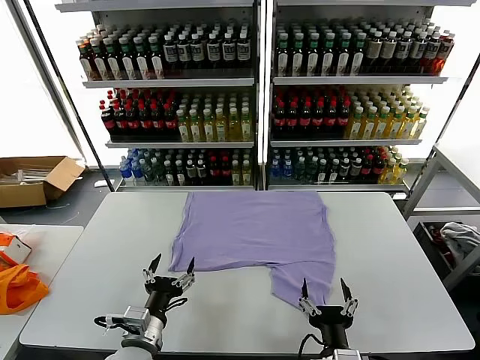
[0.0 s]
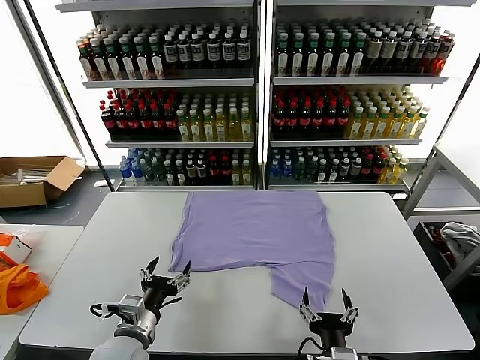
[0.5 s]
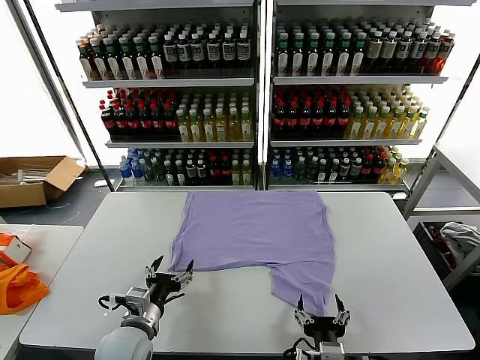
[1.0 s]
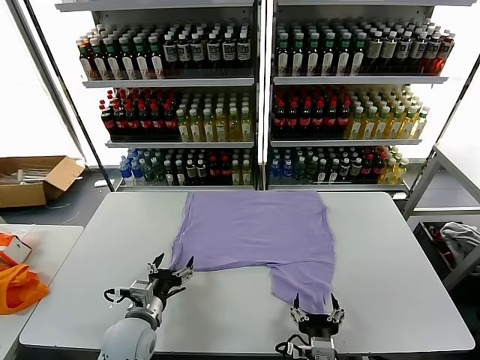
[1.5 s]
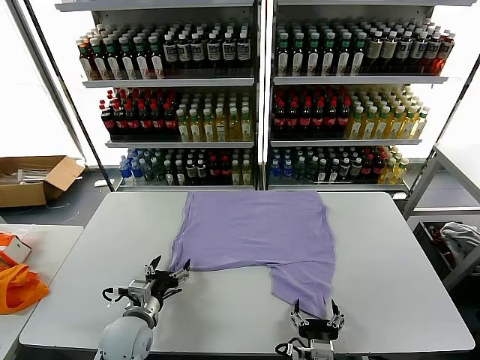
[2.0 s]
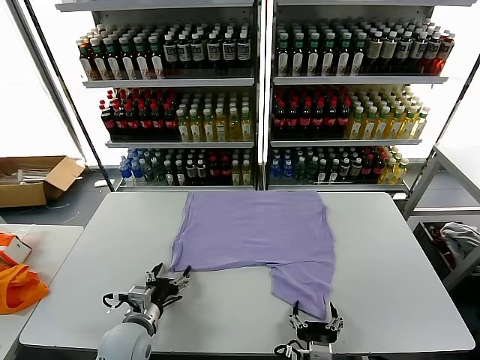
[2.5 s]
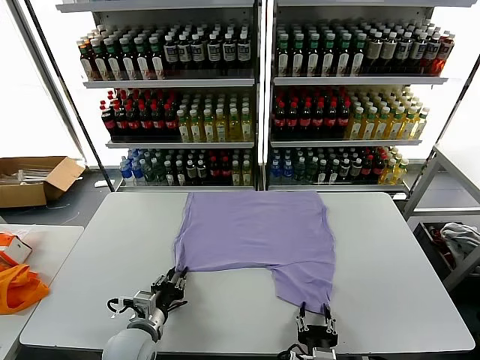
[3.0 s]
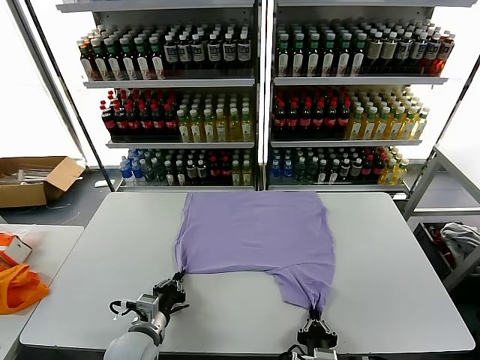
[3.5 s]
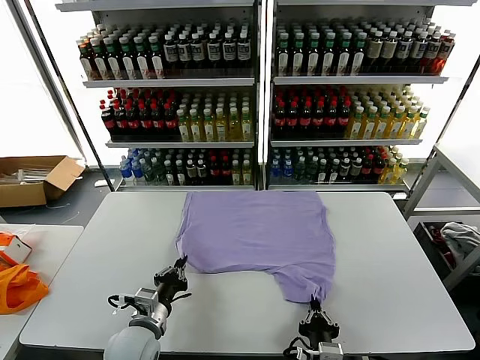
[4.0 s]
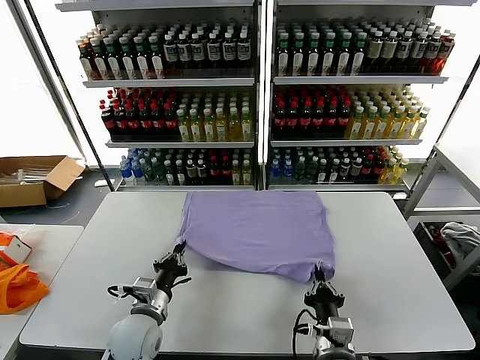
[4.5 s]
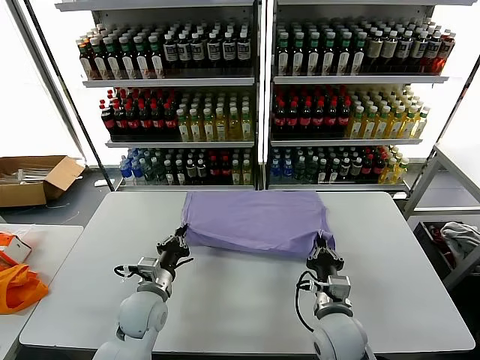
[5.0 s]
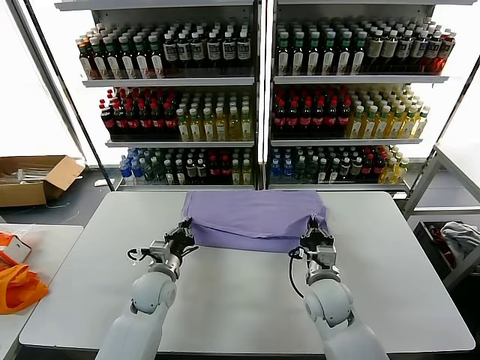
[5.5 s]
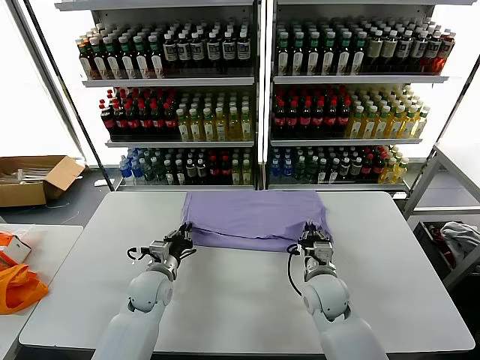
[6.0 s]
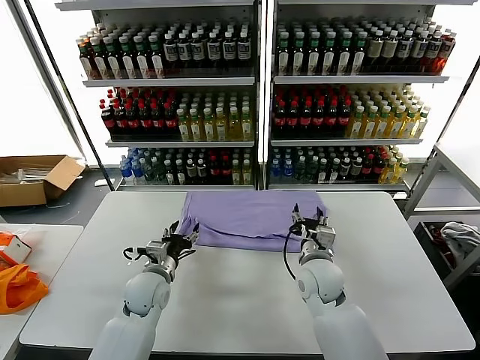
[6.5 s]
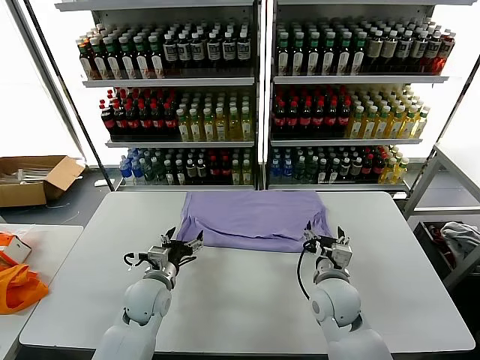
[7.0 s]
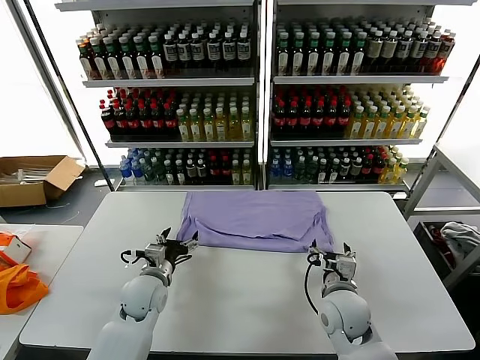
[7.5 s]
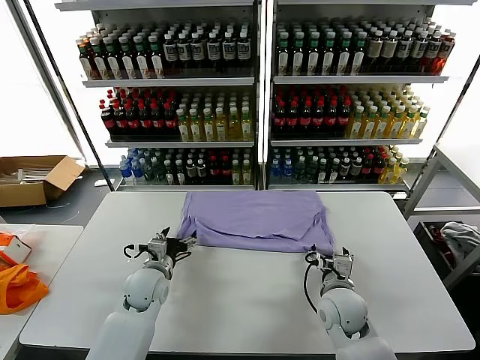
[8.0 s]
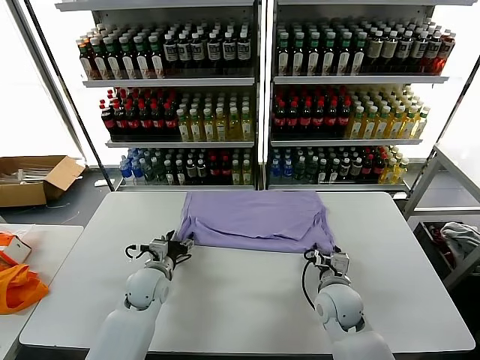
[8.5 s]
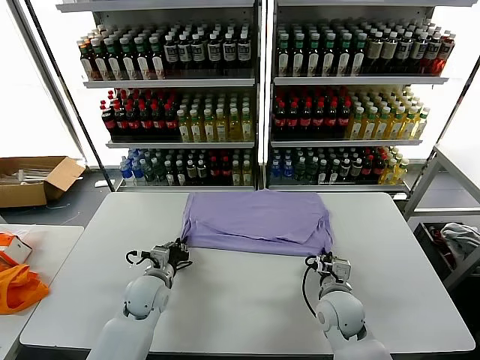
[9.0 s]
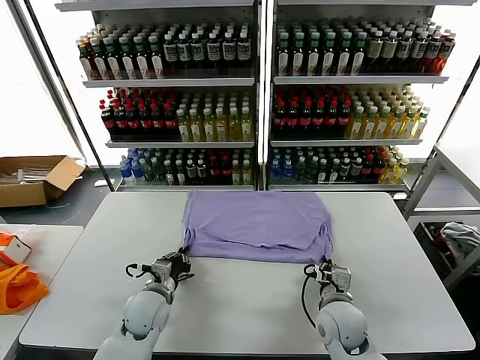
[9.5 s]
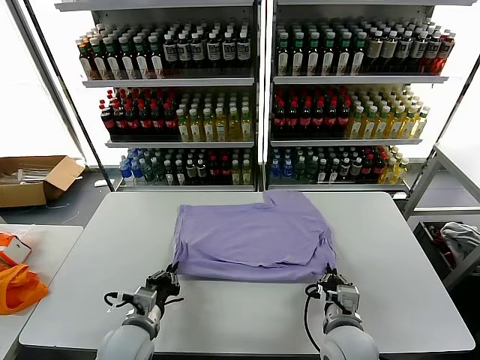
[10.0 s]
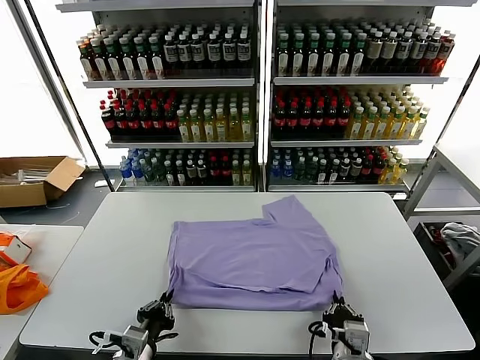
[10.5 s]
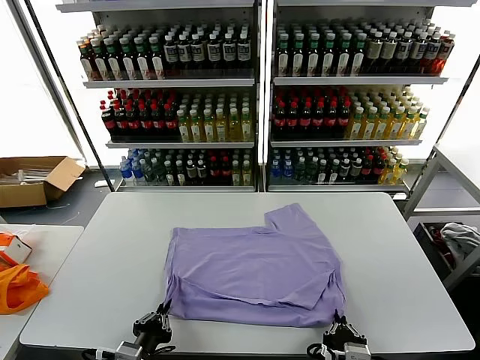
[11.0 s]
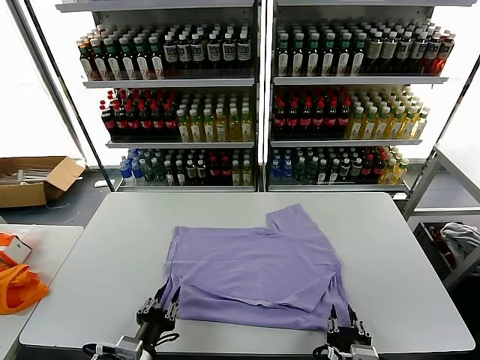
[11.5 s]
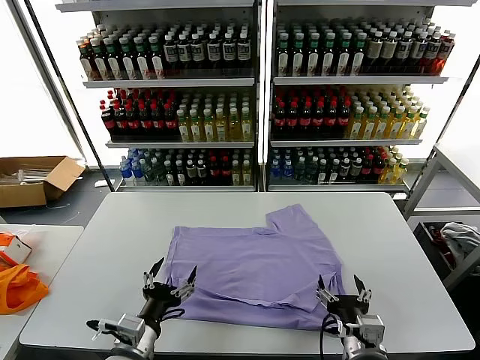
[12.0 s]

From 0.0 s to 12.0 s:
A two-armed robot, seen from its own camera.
Task of the whole recording: fold and organize the clothes.
Step, from 0.0 s to 3.5 s: use both grippers simultaneously to clamp the lower edge of the clothing fabric.
Step, from 4.0 s to 6.0 s: use both grippers to drag the lower edge of the fabric forward and fold it over the upper edge.
Step, from 6.5 s to 11.5 s: Drag the clothes downward with both gripper.
From 2.0 s to 4.0 s: The left gripper closes its fingers; the right gripper closes its fingers.
From 4.0 s to 6.0 s: The right gripper shifts roughly 20 cm forward, and opens. The left gripper shifts roughly 15 cm forward.
From 6.0 s to 8.0 s: The right gripper ends up some 5 cm from where it was, and opens. Meanwhile the left gripper opens up.
From 8.0 s to 10.0 s: Both grippers travel together backward, roughly 15 cm. The left gripper closes up; the right gripper closes up.
From 10.0 s to 12.0 s: The left gripper travels backward by roughly 5 cm, and opens up. Meanwhile the right gripper moves approximately 10 cm backward and comes back, and opens.

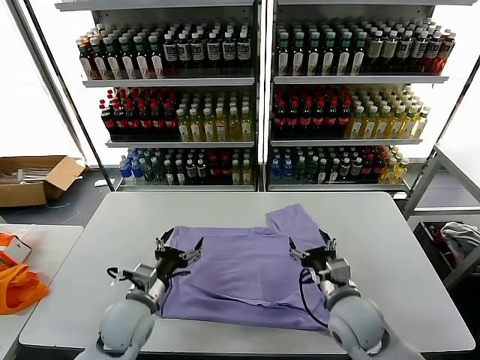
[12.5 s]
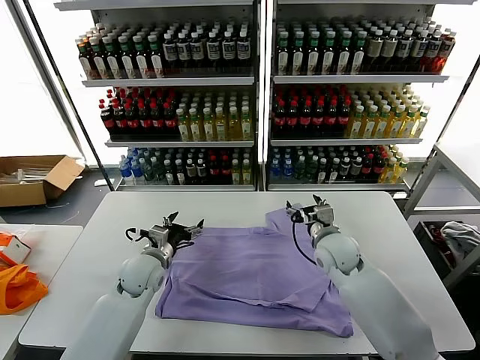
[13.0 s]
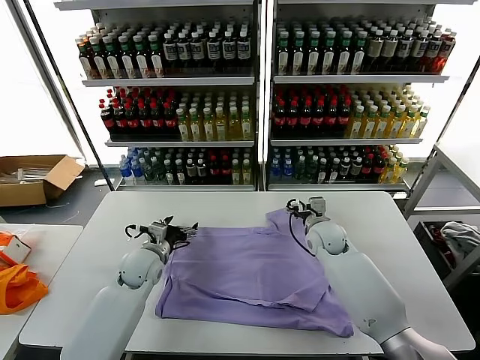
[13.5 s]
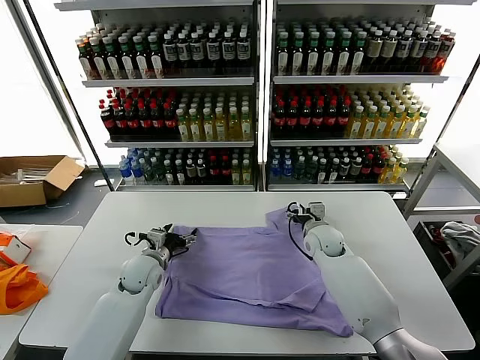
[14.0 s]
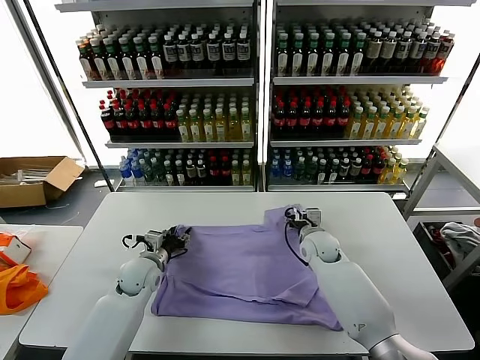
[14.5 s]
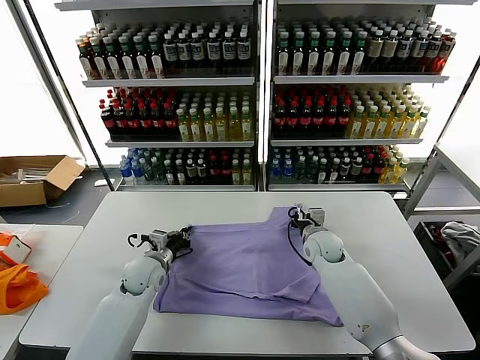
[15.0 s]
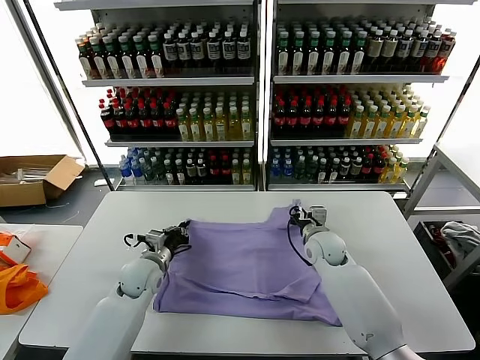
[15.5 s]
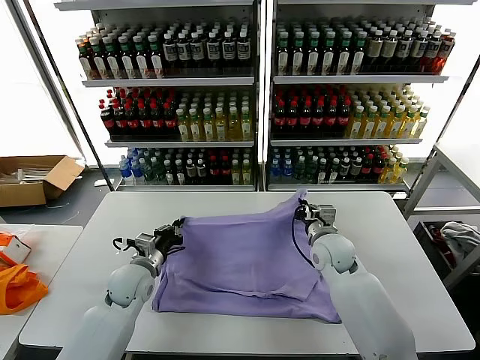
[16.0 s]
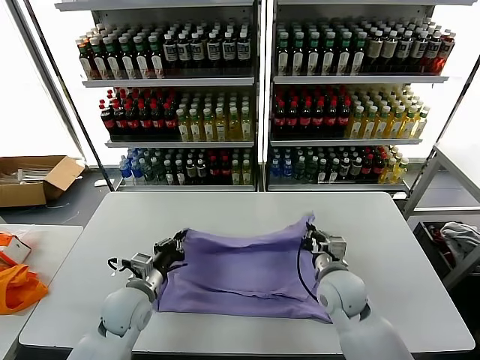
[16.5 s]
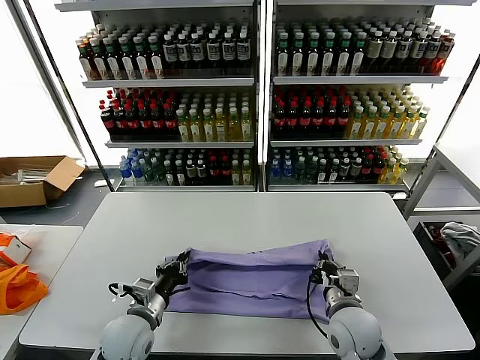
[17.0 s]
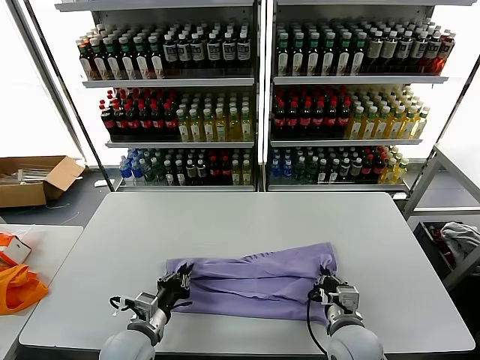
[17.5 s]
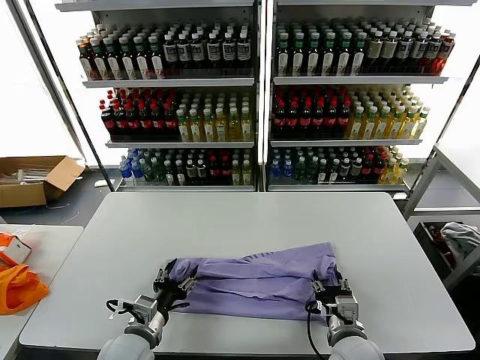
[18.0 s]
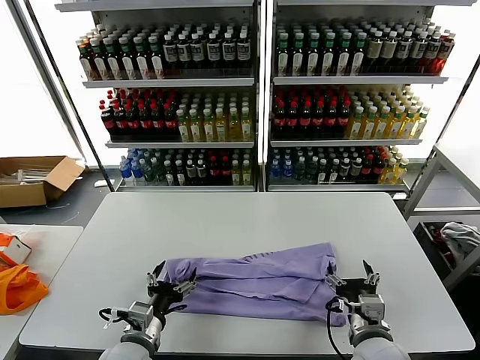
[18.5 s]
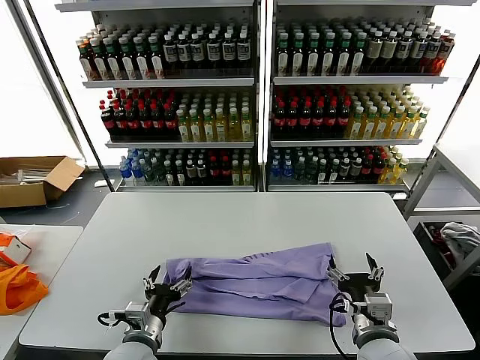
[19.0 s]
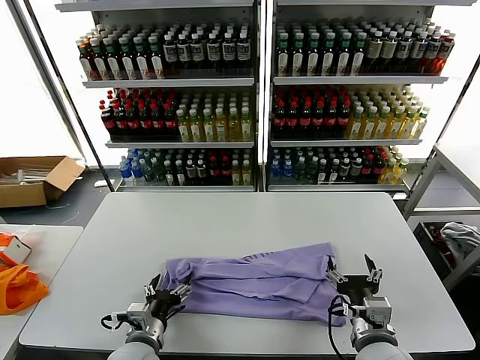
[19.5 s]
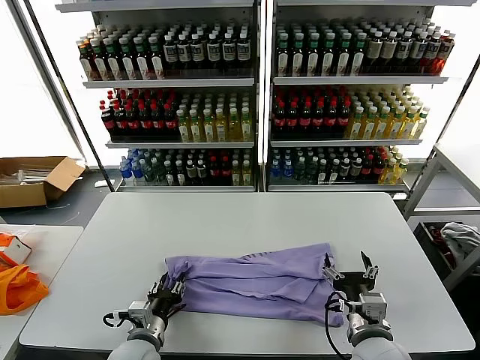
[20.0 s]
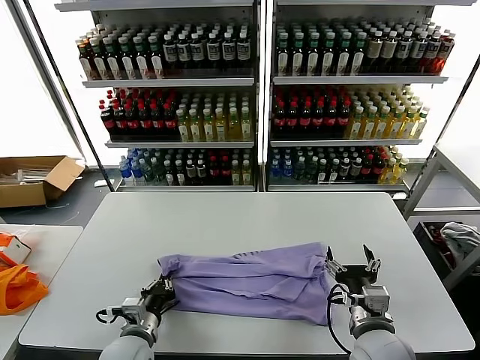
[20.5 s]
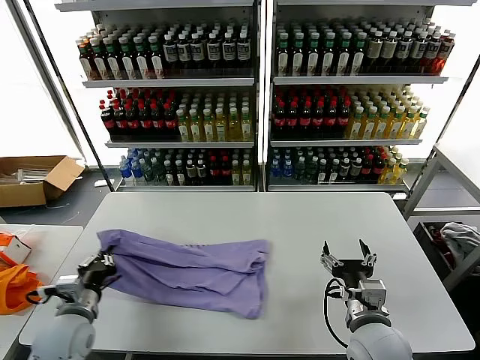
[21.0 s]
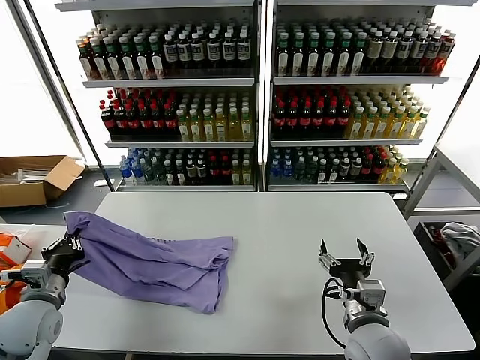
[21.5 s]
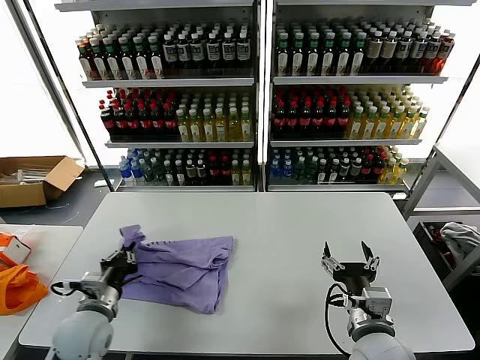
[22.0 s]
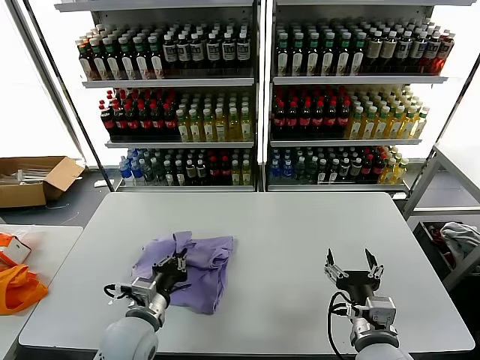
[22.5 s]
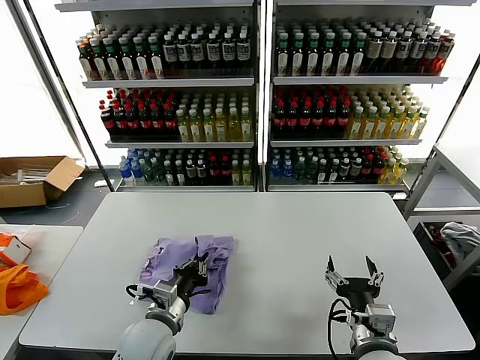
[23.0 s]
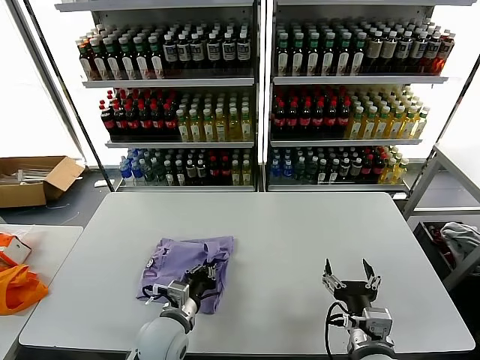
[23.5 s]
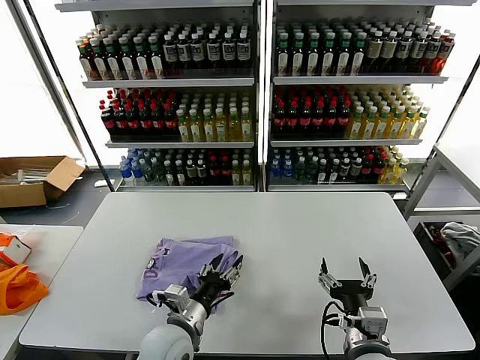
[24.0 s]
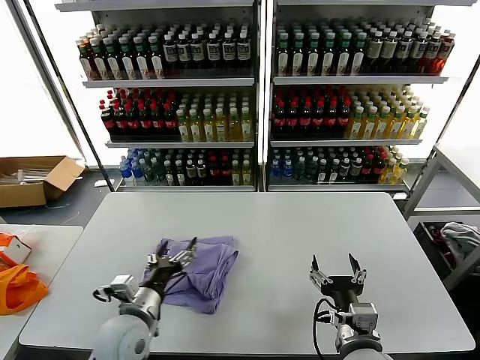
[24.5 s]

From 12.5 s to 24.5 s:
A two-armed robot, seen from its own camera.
Task of the whole recording: fold and organize the clothes.
Step, from 12.5 s to 15.5 s: use both grippers simultaneously to clamp the upper edge of the clothing fabric.
Step, from 16.0 s to 18.0 s: use both grippers to drag the upper edge of the fabric backward and fold it over the lower edge.
Step, from 18.5 s to 20.0 s: use the left gripper to clamp the left edge of the fabric.
Step, from 21.0 s to 24.0 s: use the left gripper to drag the left edge of the fabric to the left and folds it over the right edge.
From 12.5 s to 14.5 s: The grippers both shift forward by roughly 15 cm. The left gripper closes. Meanwhile the right gripper closes.
From 14.5 s to 16.5 s: The right gripper shifts roughly 15 cm backward, and closes its fingers. Meanwhile the left gripper shifts some 10 cm backward, and closes up.
From 16.5 s to 18.5 s: The grippers both shift backward by some 10 cm. The left gripper opens up, while the right gripper opens its fingers.
From 18.5 s to 20.5 s: The left gripper closes.
From 20.5 s to 22.5 s: The left gripper shifts some 5 cm upward, and travels to the left and back again, some 15 cm each way.
From 22.5 s to 24.5 s: The left gripper opens up.

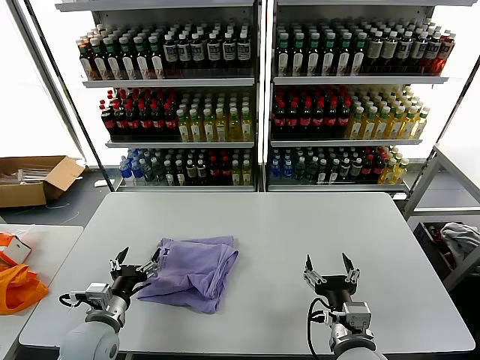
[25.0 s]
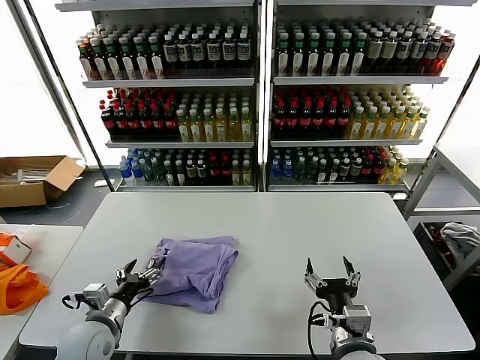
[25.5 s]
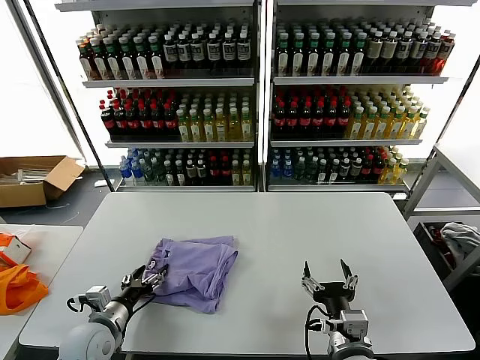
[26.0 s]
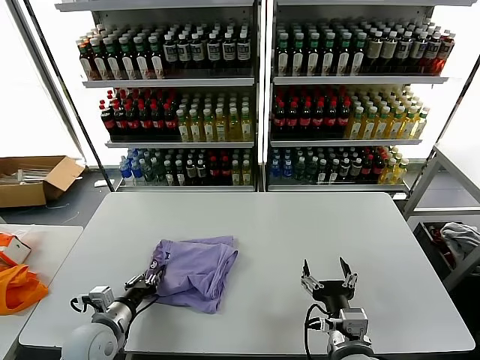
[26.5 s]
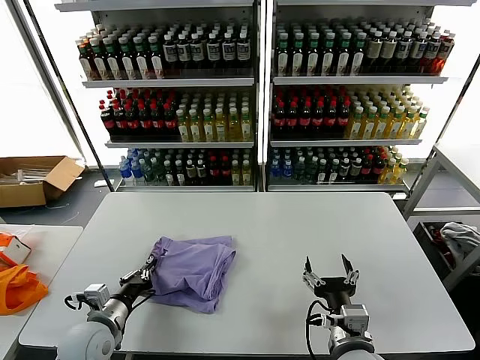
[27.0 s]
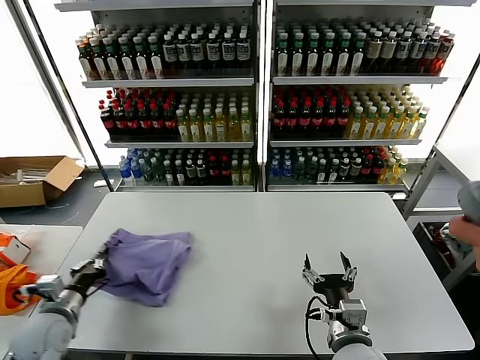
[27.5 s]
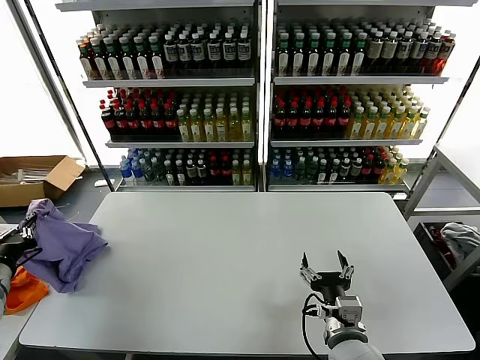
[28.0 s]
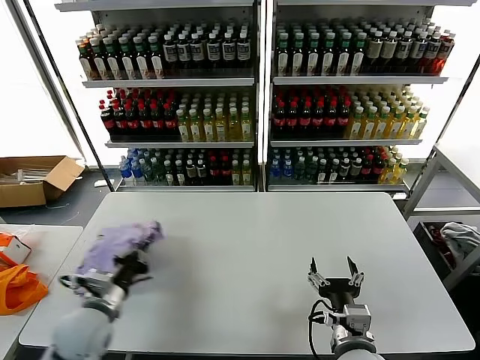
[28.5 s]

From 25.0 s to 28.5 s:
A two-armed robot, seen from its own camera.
Task of the whole recording: fold and organize the clothes.
From 25.0 s to 27.0 s: The left gripper closes.
From 27.0 s to 28.5 s: The left gripper heads upward, covering about 5 cm, and goes to the left and returns, some 20 cm each way.
